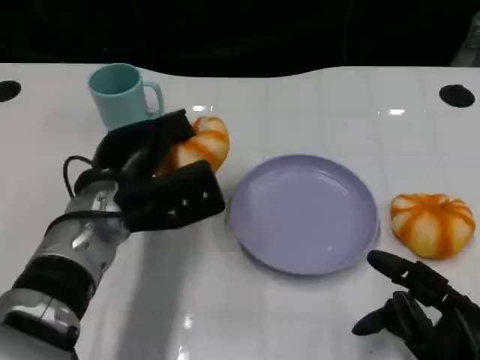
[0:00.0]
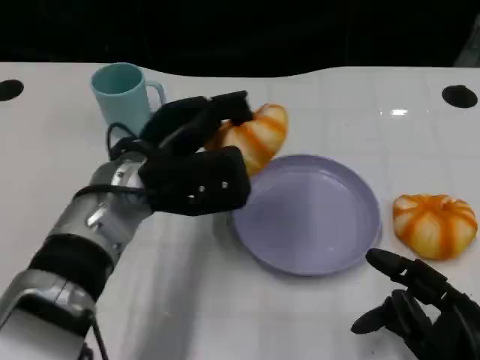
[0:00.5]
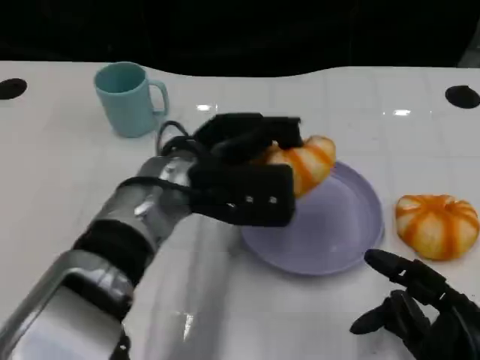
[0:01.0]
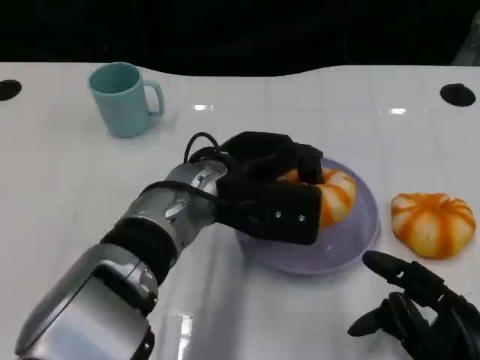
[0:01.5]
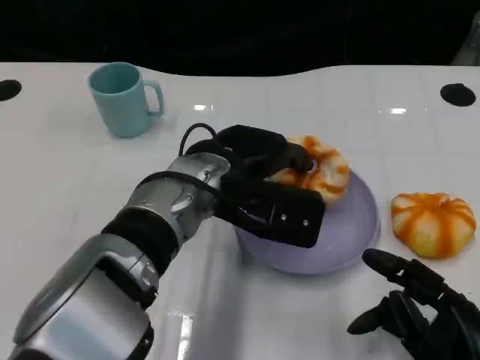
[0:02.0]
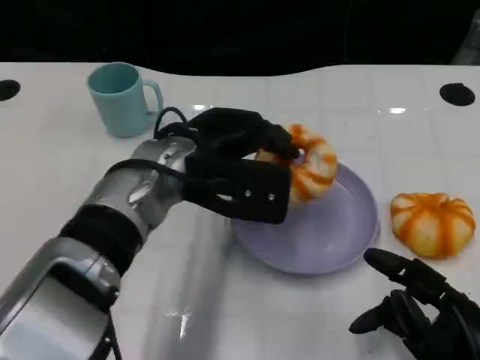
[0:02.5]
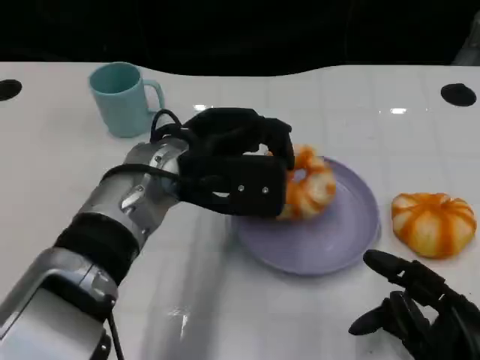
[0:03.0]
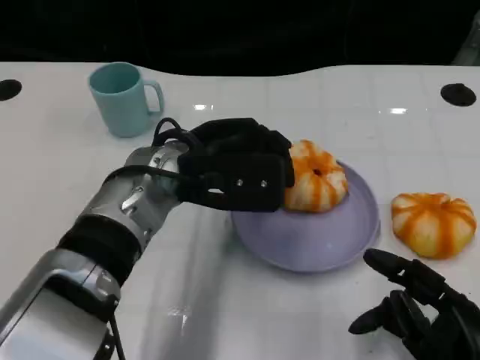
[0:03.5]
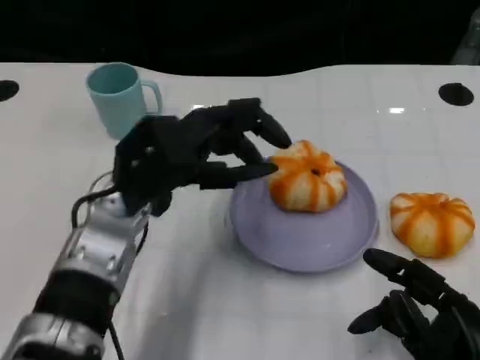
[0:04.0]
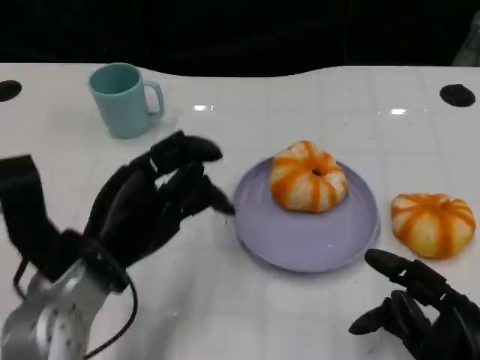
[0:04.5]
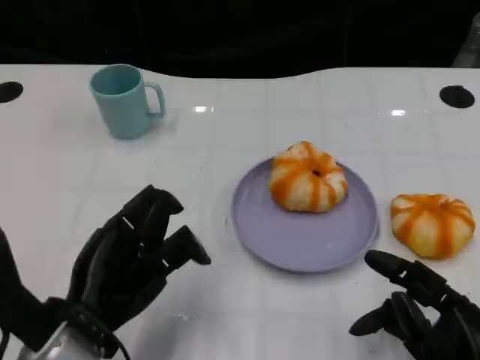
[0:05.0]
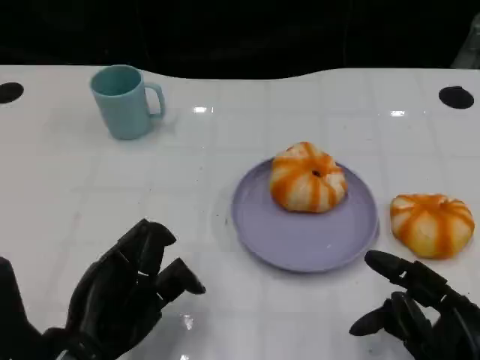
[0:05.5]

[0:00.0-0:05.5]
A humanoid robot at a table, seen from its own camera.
Task of the whole recording: Grasp the bread from the table and place it into the plate.
0:00.0 to 0:02.0: The left hand shifts roughly 10 cm to the right.
0:03.5 to 0:05.5: The left hand shifts roughly 20 cm backward, to the left and downward.

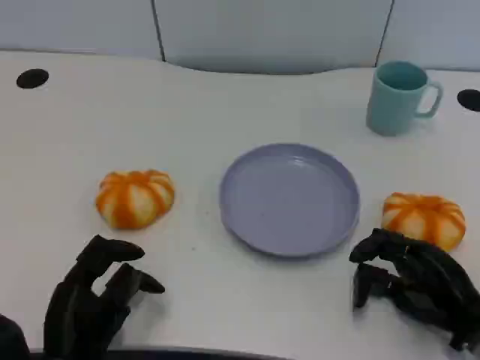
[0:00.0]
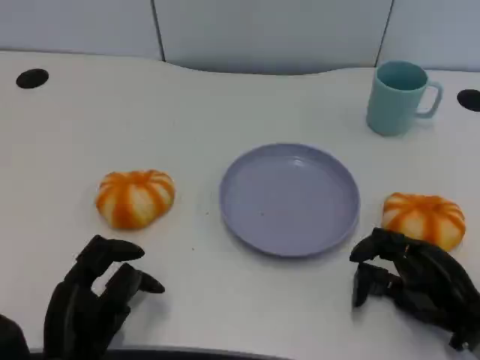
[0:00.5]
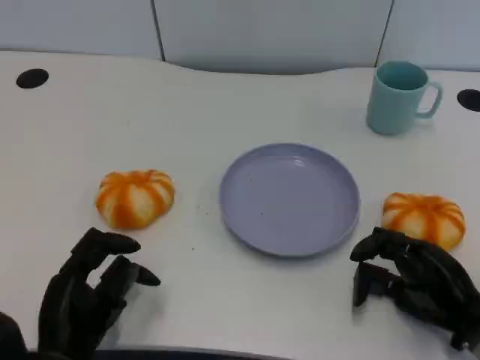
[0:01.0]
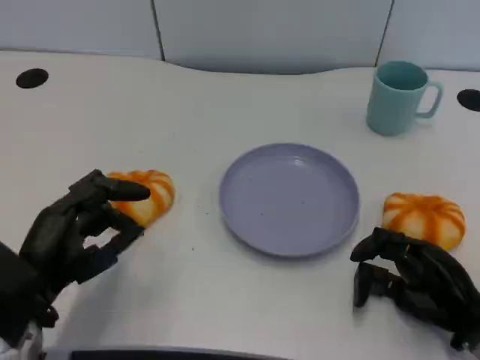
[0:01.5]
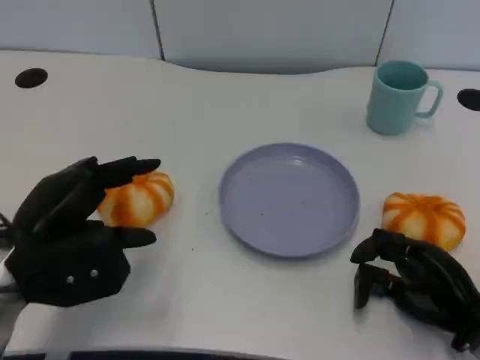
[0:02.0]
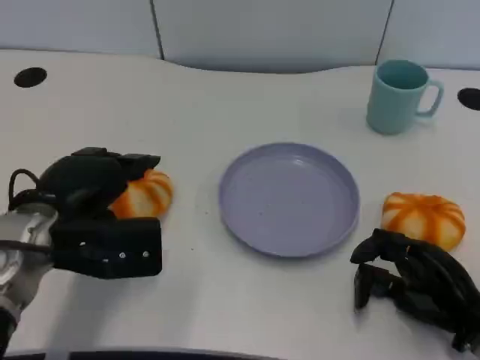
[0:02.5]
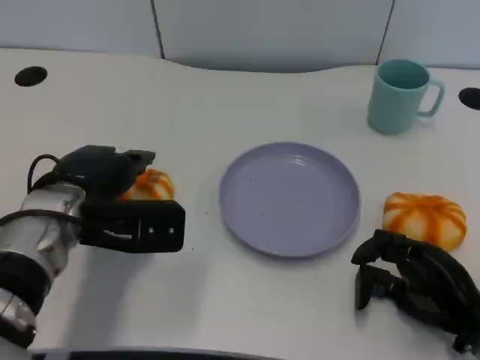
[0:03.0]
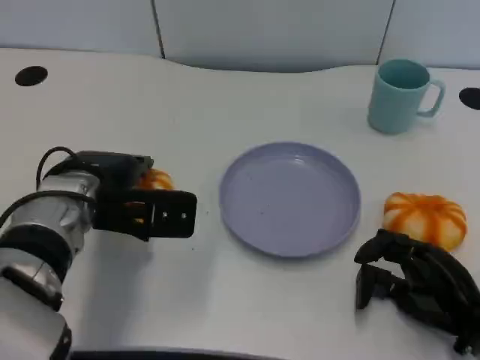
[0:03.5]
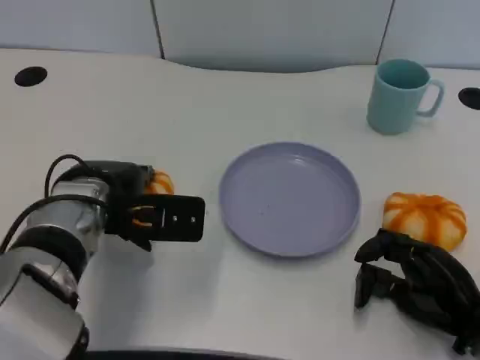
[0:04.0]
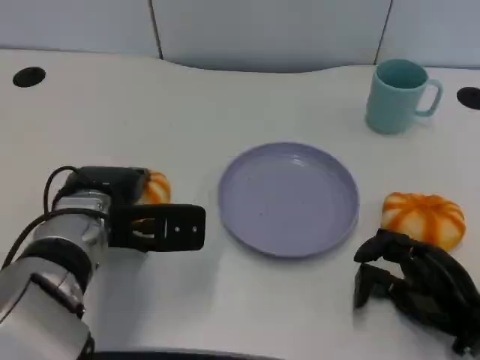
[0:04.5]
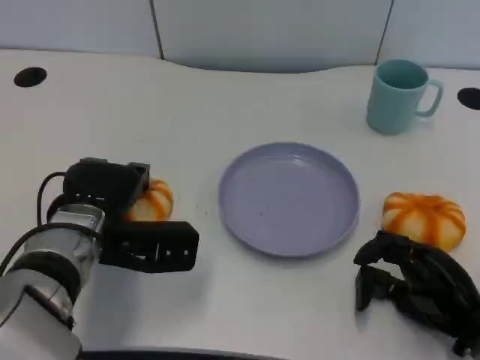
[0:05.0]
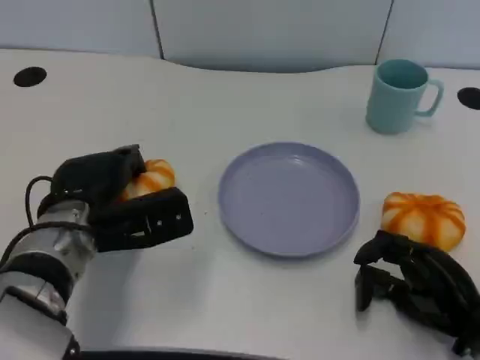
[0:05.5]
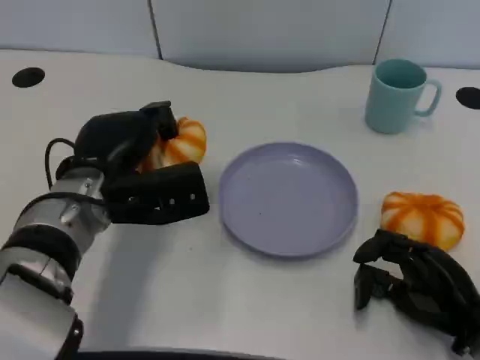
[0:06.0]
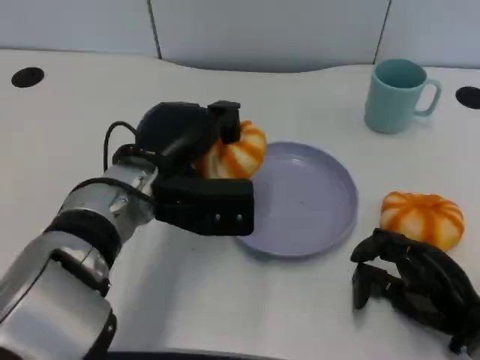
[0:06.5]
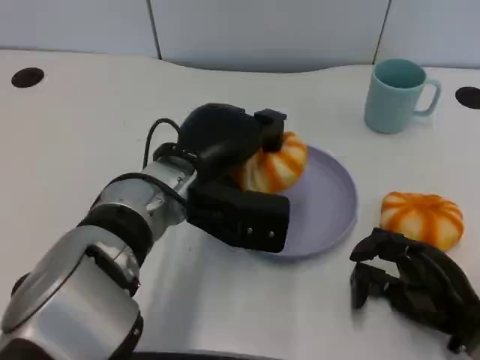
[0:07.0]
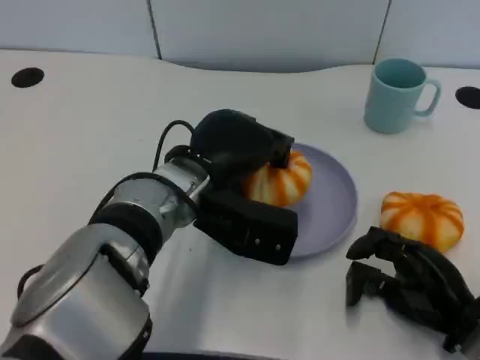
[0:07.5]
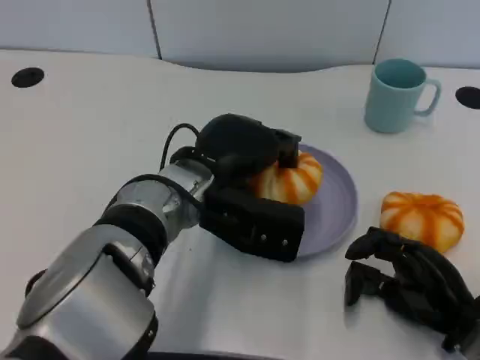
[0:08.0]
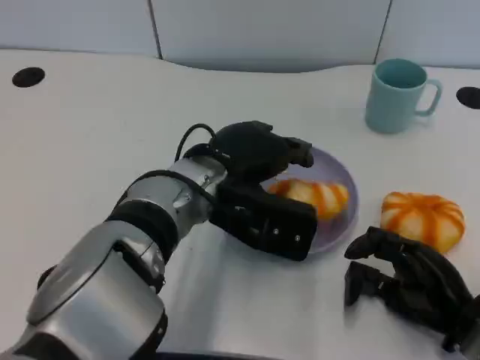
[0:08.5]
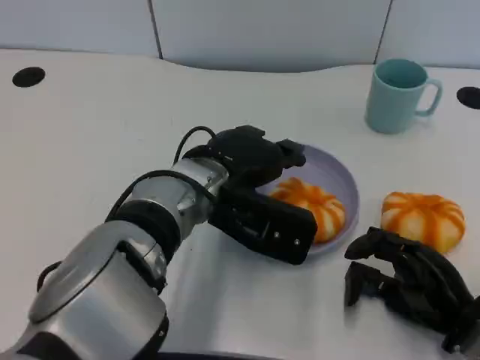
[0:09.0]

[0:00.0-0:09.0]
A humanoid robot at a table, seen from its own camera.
Task of the whole recording: Grasp the bread from the table and place it into the plate.
0:00.0 to 0:02.0: The left hand moves upward and forward, about 15 cm.
0:02.0 to 0:04.5: The left hand heads to the right and forward, covering about 10 cm.
0:04.5 to 0:07.0: The left hand is displaced to the right by some 10 cm.

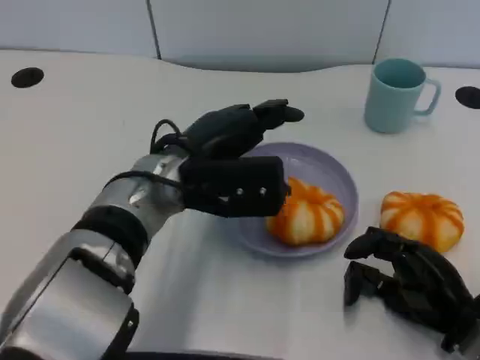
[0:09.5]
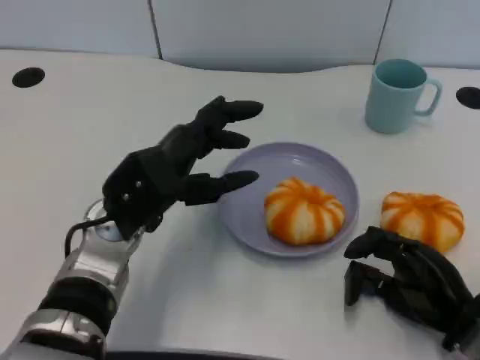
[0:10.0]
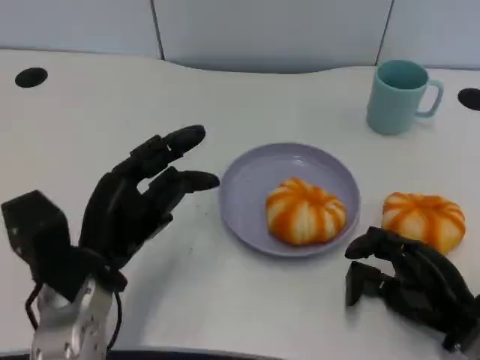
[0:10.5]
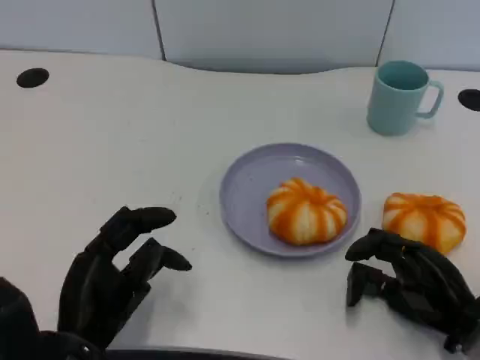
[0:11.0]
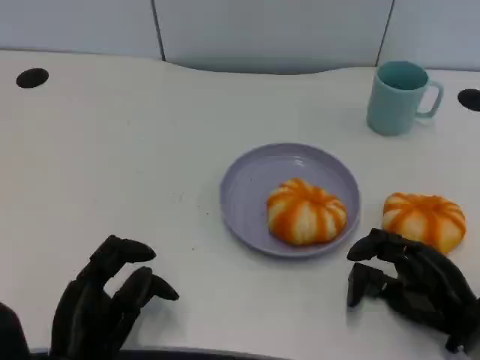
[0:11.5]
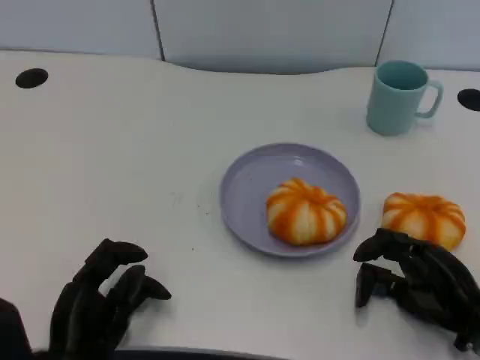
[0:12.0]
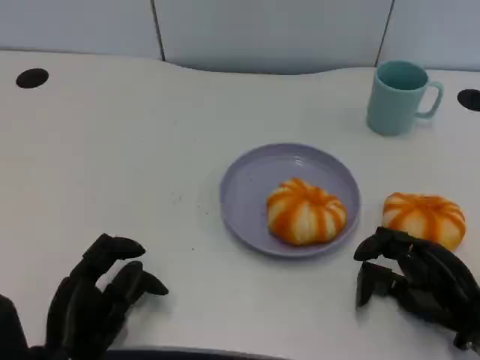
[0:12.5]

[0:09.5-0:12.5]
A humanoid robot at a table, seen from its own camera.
Task of the whole recording: Grasp the bread from the table and place it into the plate.
0:09.5 to 0:11.0: The left hand goes approximately 20 cm backward, to the left and downward.
0:11.0 to 0:12.5: The hands make only small movements.

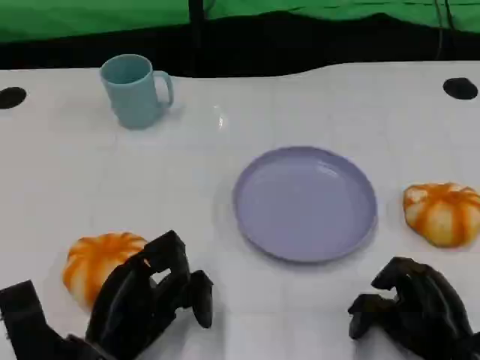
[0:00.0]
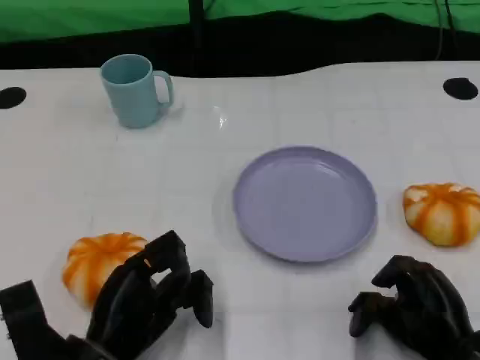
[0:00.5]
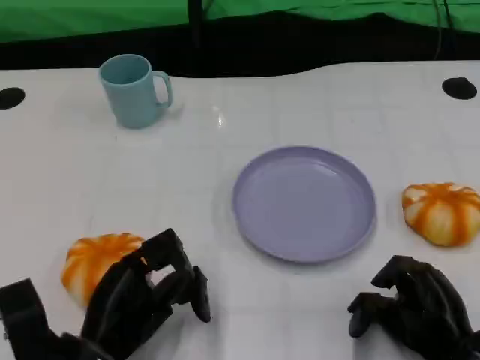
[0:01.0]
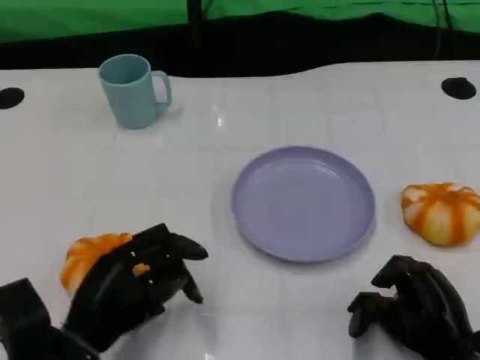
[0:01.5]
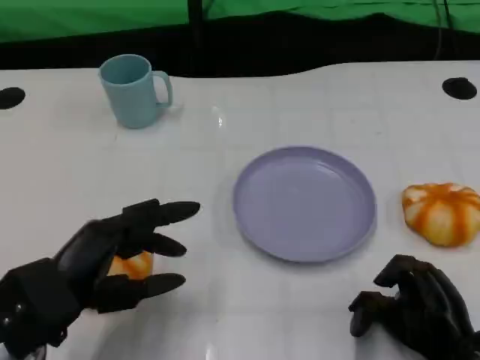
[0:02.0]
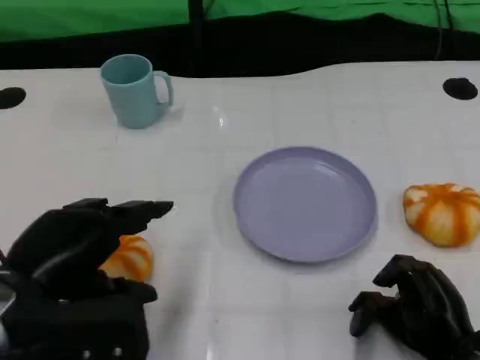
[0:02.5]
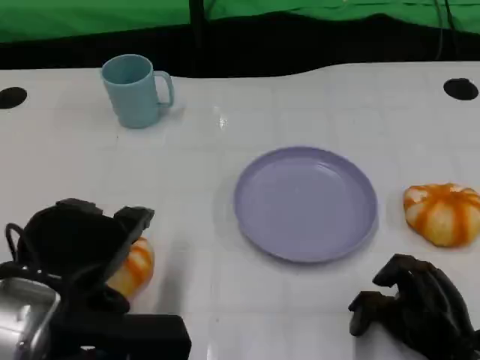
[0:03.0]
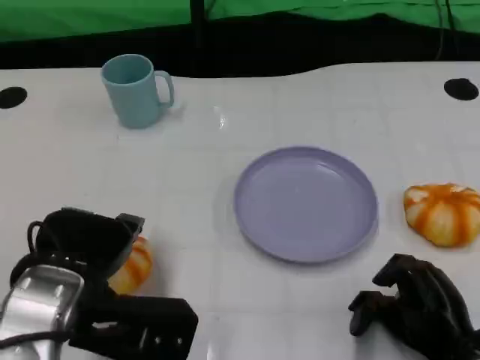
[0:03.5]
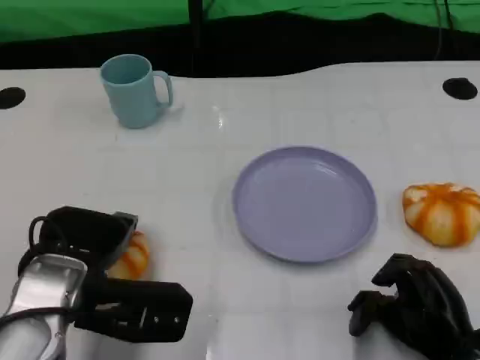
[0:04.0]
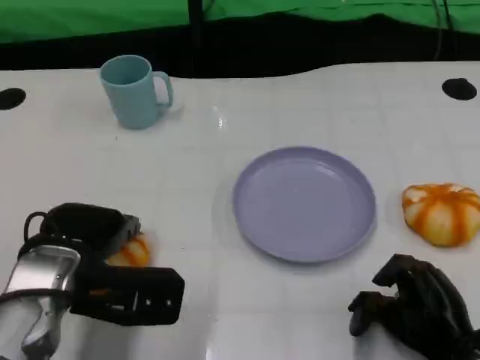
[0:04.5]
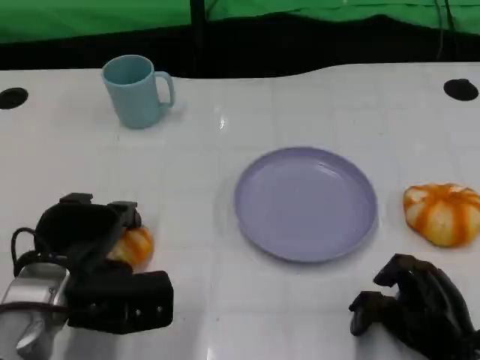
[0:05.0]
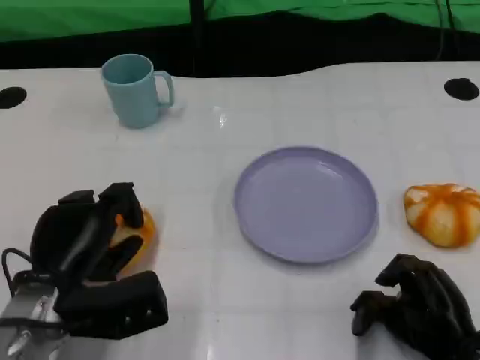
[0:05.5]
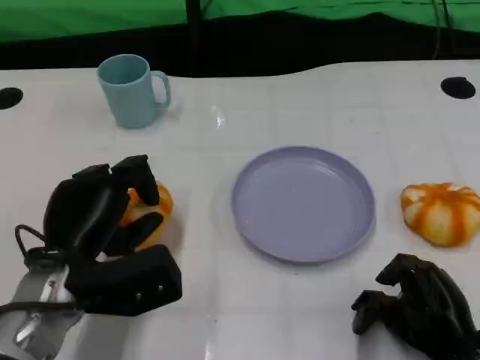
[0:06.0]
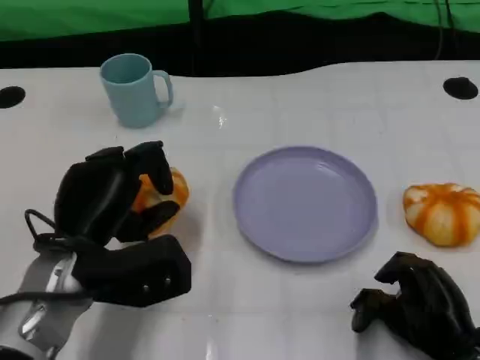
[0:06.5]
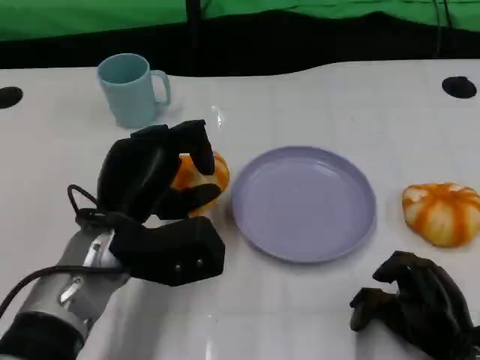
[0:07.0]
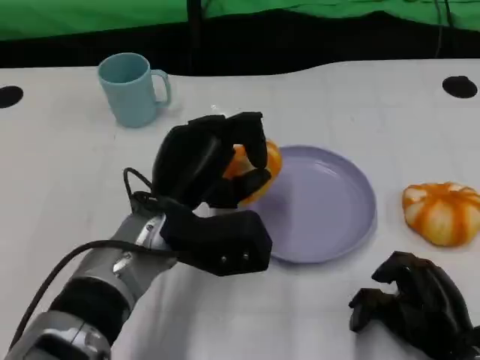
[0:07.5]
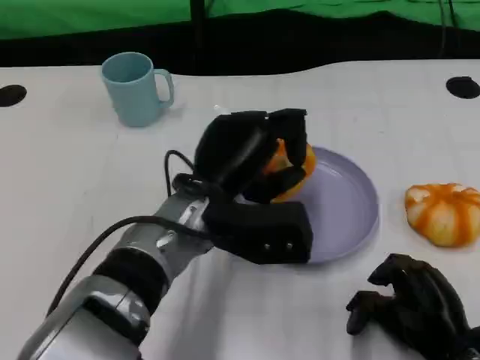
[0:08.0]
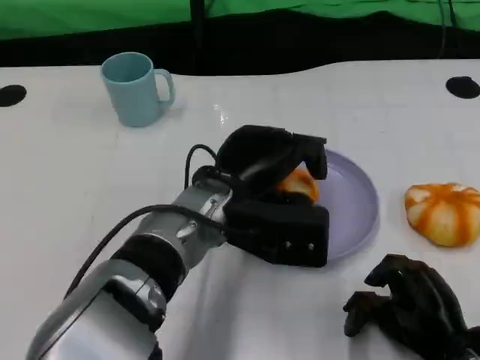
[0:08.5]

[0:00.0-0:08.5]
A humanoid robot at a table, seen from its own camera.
Task of the whole recording: Grasp the bread from the table and place it into the plate.
0:00.0 to 0:02.0: The left hand shifts approximately 10 cm upward.
0:02.0 to 0:04.0: The left hand changes place by approximately 5 cm.
0:06.5 to 0:08.5: The left hand goes approximately 15 cm to the right.
